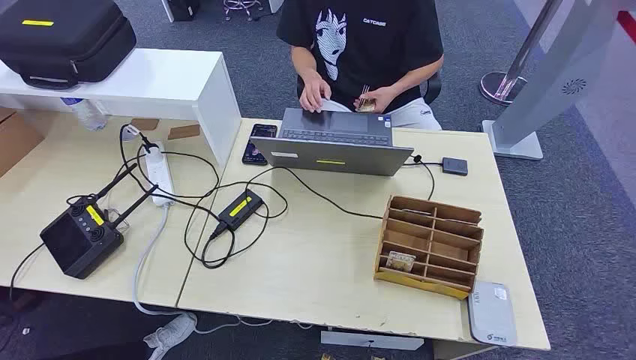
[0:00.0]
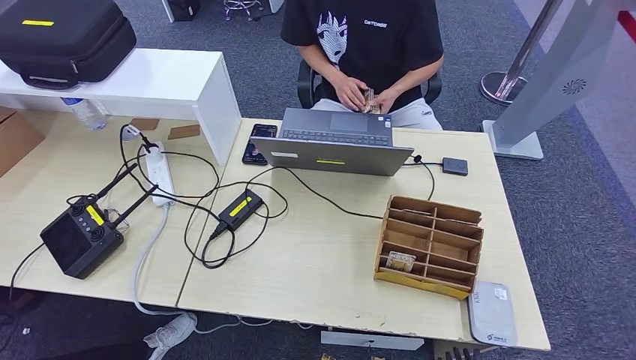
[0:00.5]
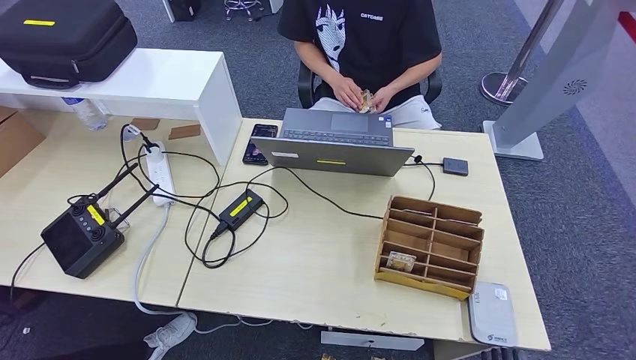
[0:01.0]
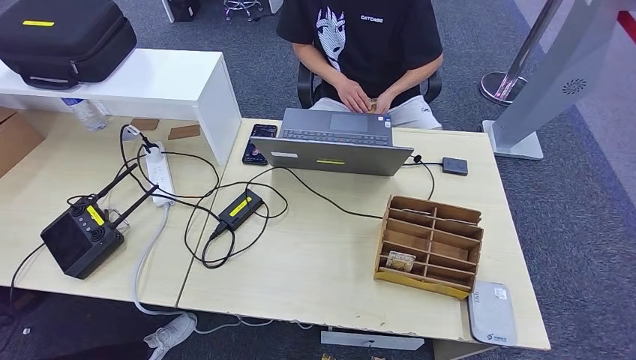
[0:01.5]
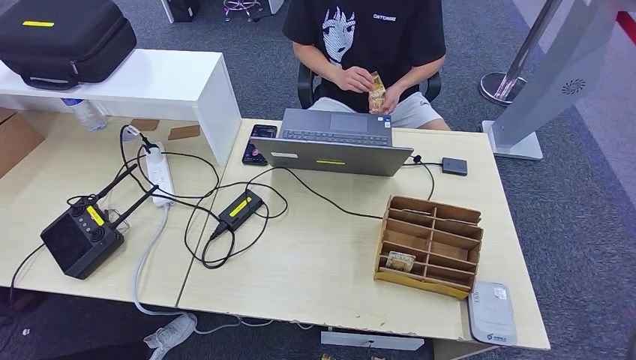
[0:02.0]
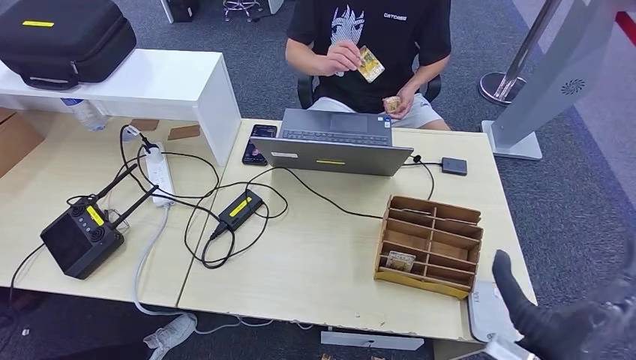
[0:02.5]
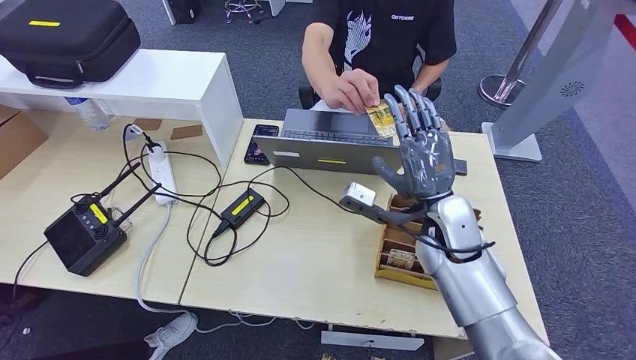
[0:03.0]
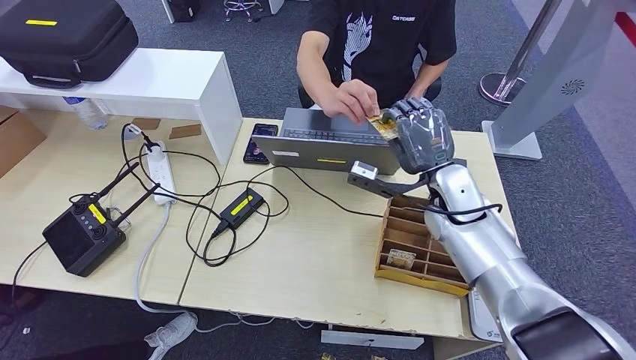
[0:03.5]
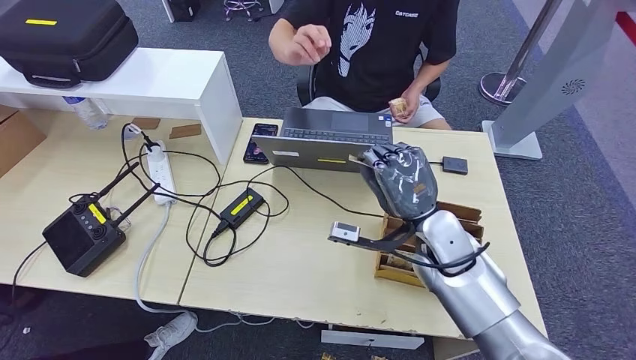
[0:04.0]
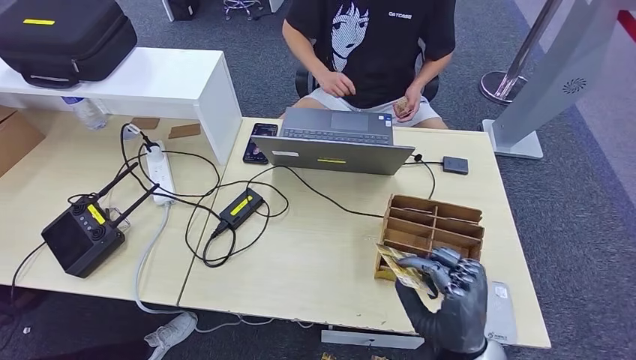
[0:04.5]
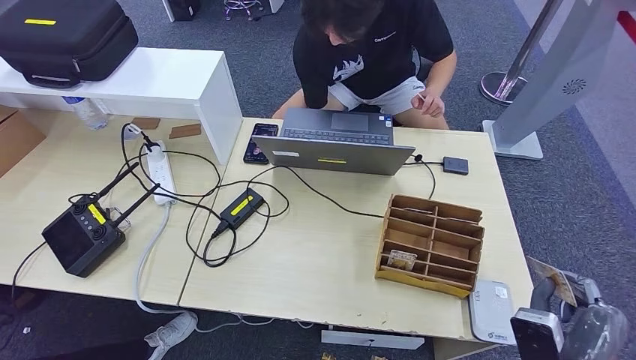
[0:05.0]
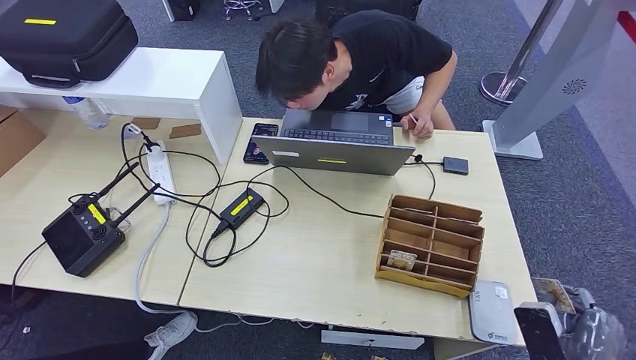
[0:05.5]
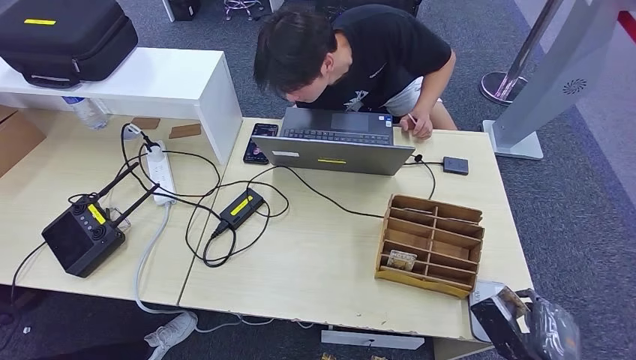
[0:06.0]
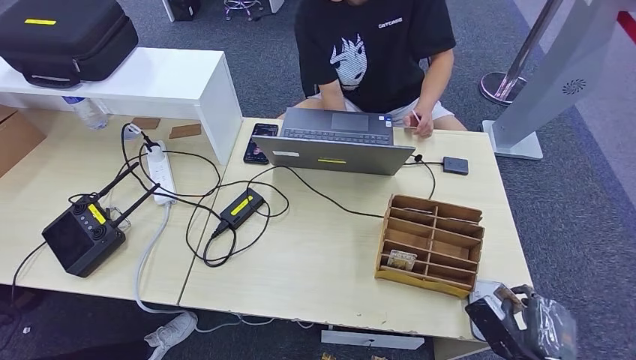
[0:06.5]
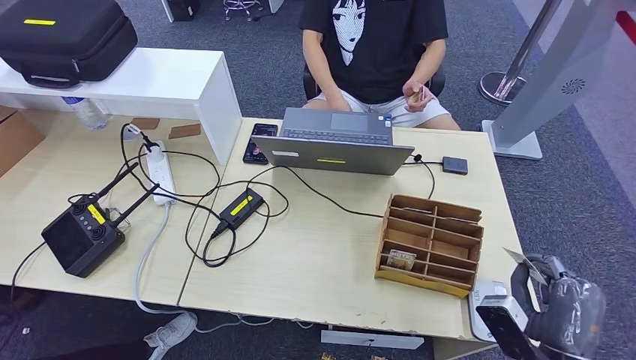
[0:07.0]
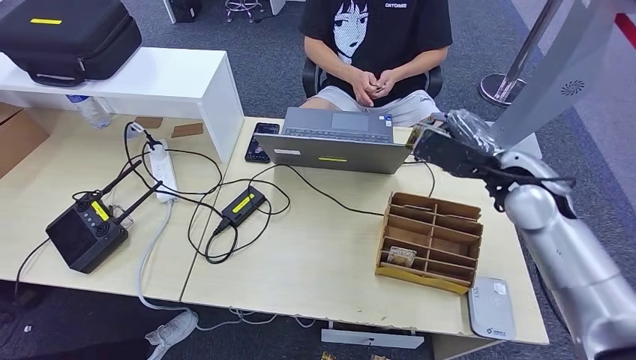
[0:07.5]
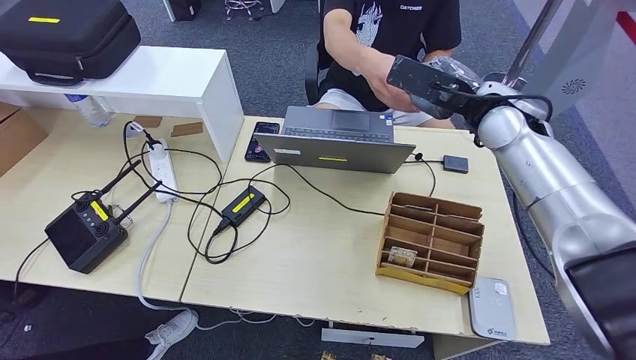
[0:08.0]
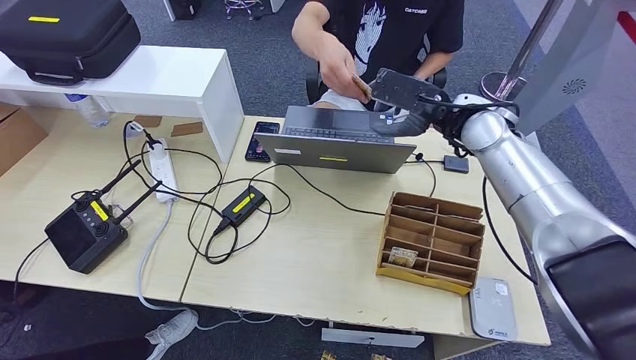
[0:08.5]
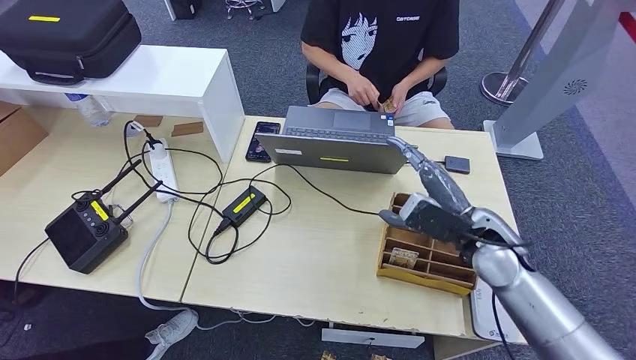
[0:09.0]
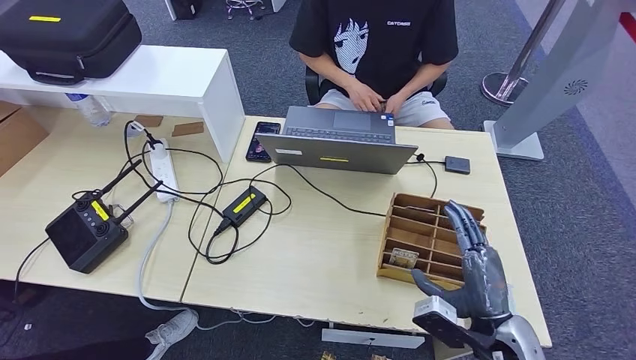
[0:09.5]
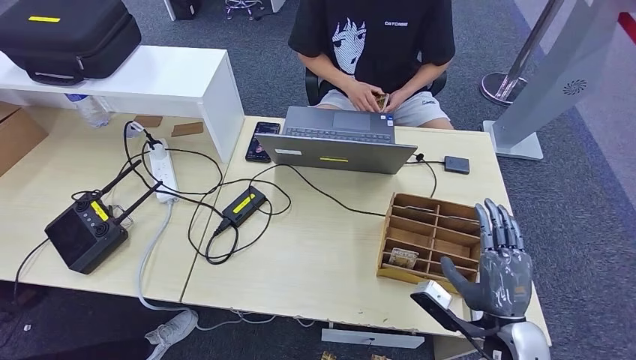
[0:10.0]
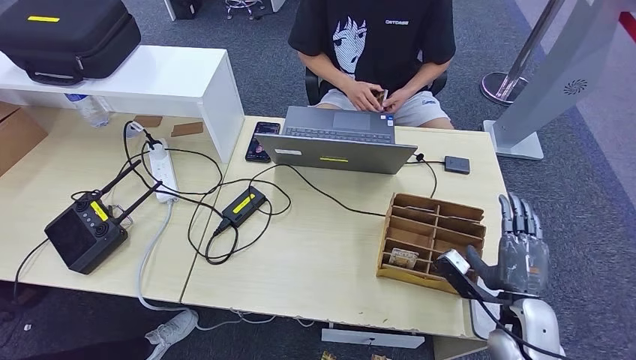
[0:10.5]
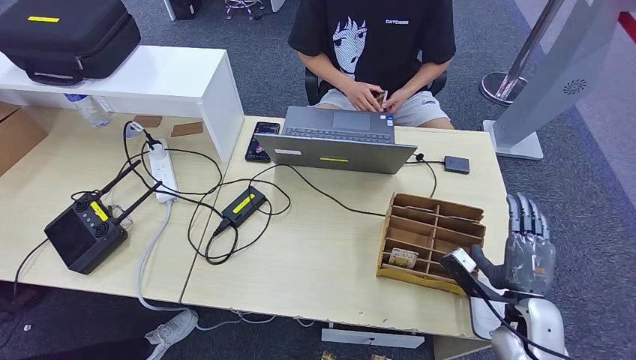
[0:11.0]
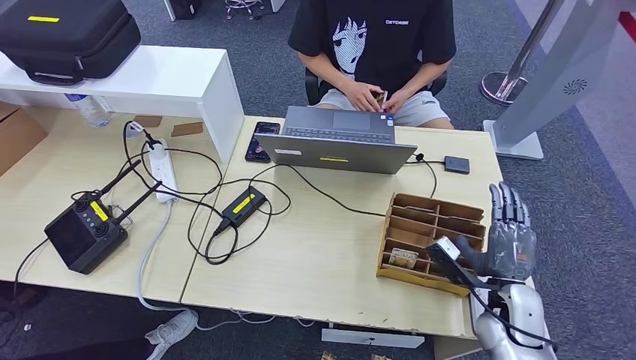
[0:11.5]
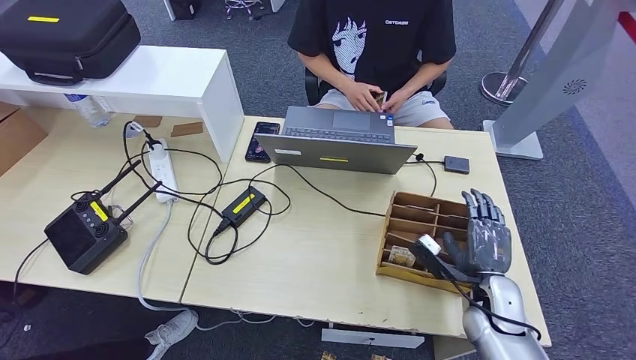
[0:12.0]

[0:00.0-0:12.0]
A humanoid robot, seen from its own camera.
Step, 0:00.0 to 0:04.5: Take the ID card from the person's hand.
Step, 0:05.0 to 0:07.0: Place the ID card on the card reader.
Step, 0:07.5 to 0:10.5: Hand the ID card to the person.
0:02.0 to 0:04.0: The right hand is displaced forward, to the left and upward by some 35 cm.
0:04.0 to 0:06.0: The right hand heads backward, to the right and downward, covering roughly 30 cm.
0:10.0 to 0:12.0: The right hand travels forward by some 10 cm.

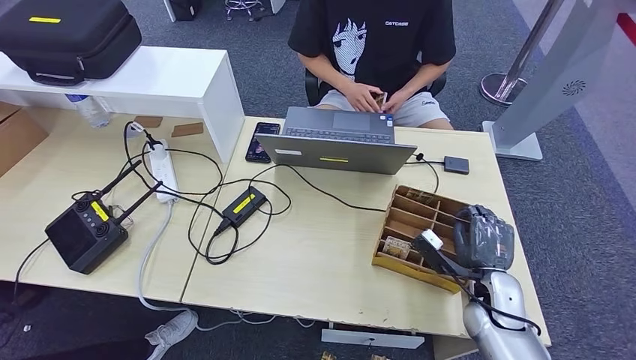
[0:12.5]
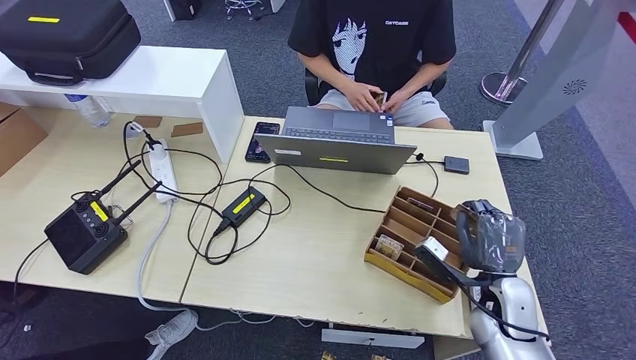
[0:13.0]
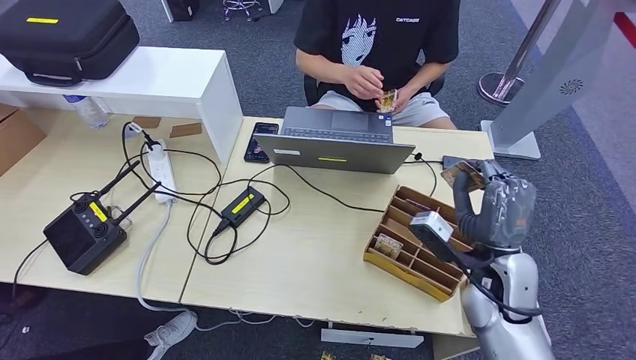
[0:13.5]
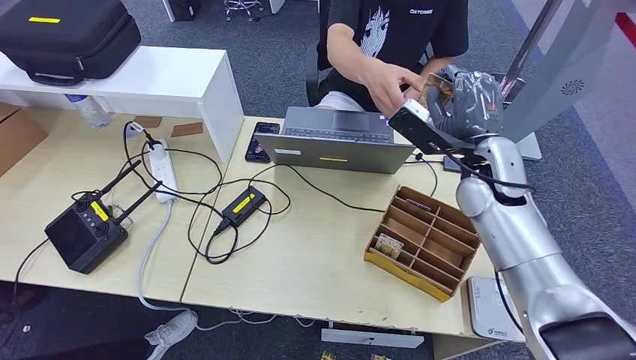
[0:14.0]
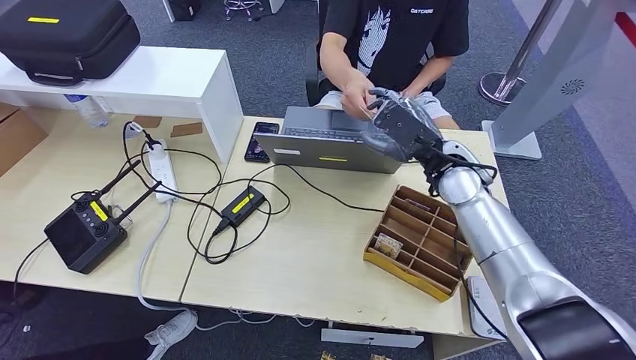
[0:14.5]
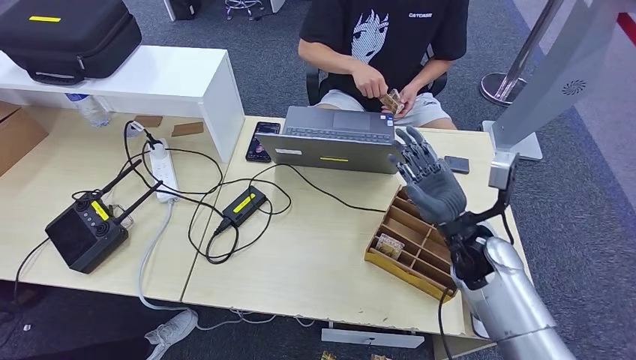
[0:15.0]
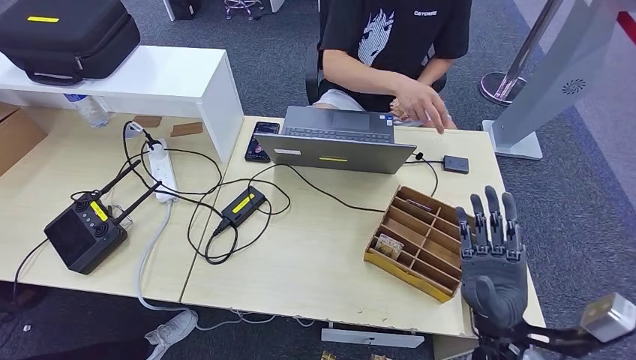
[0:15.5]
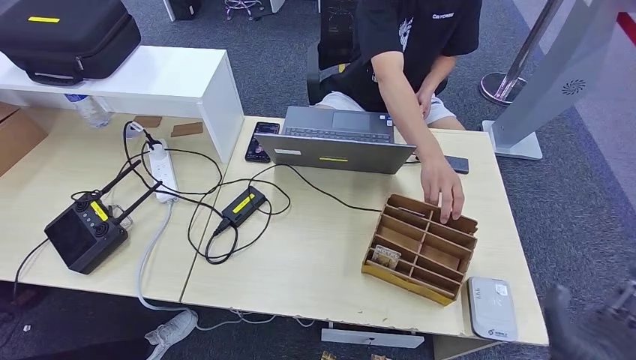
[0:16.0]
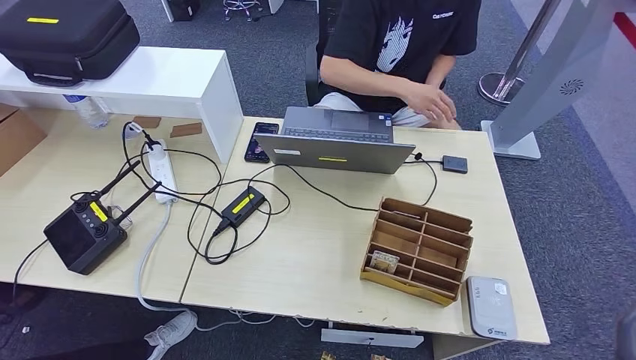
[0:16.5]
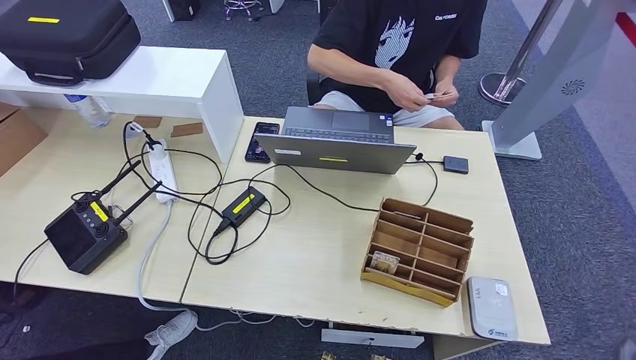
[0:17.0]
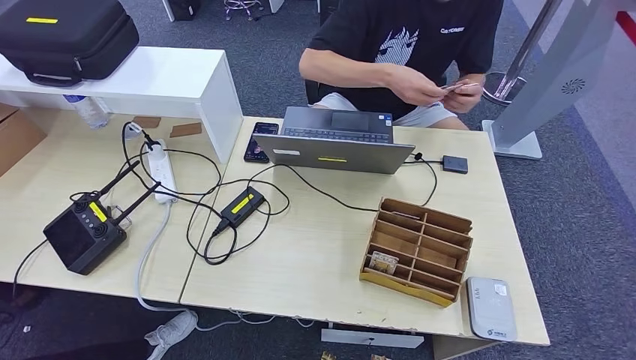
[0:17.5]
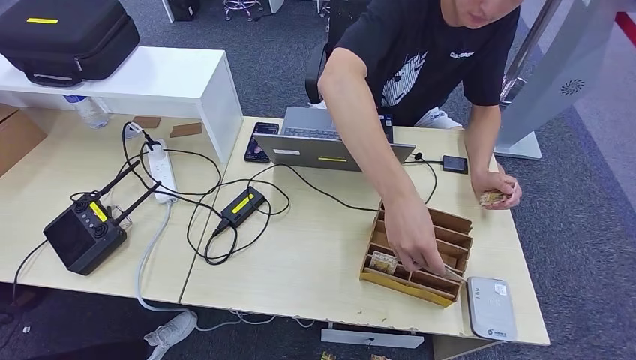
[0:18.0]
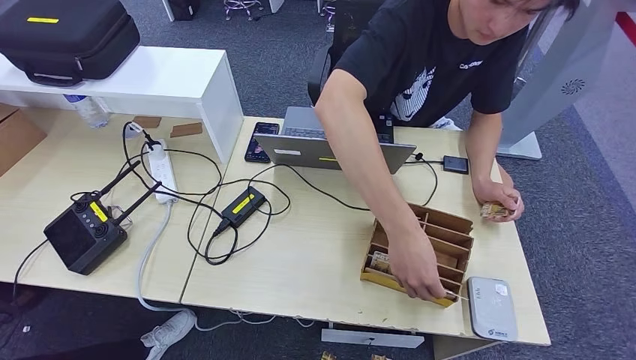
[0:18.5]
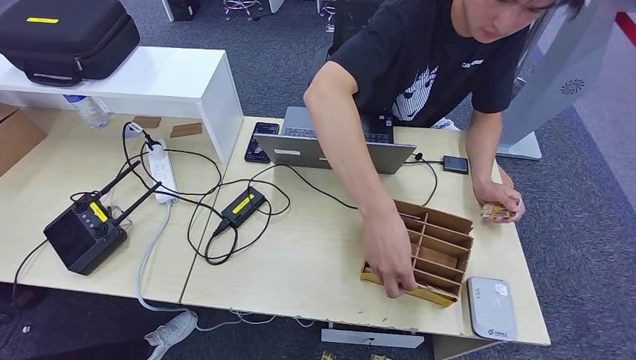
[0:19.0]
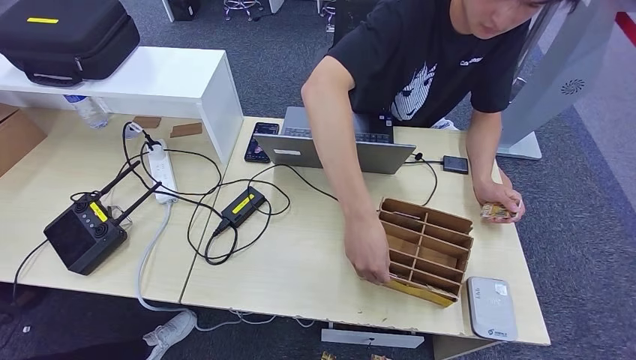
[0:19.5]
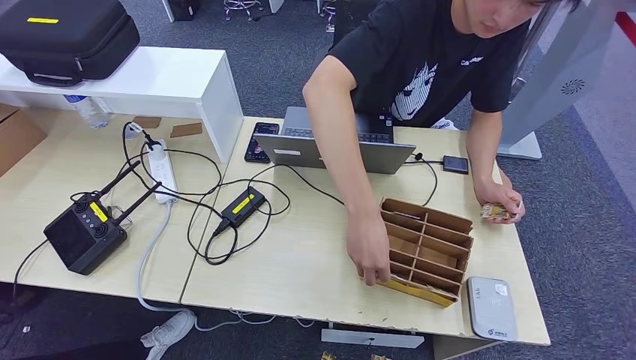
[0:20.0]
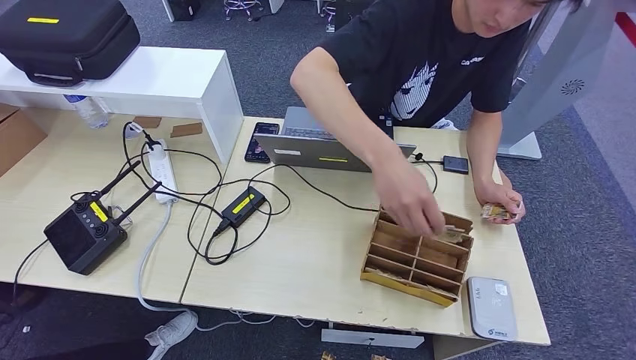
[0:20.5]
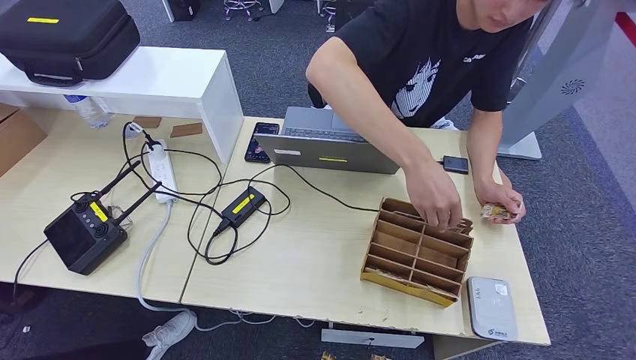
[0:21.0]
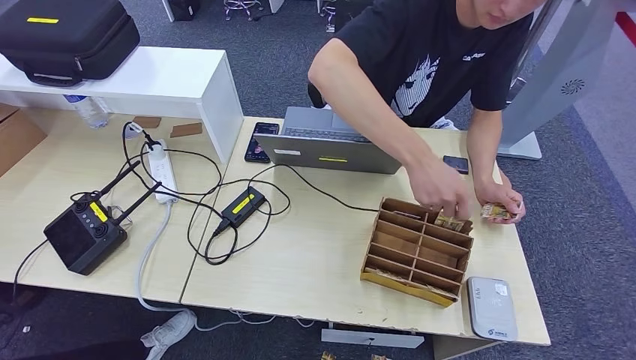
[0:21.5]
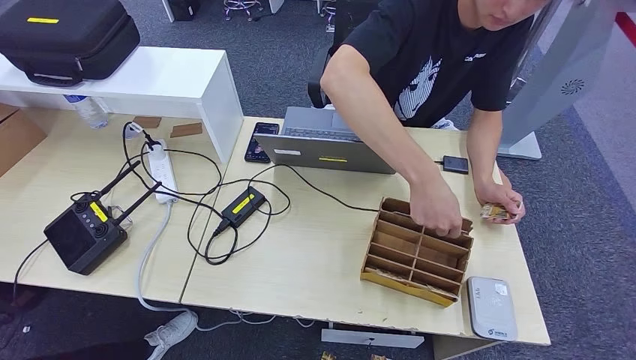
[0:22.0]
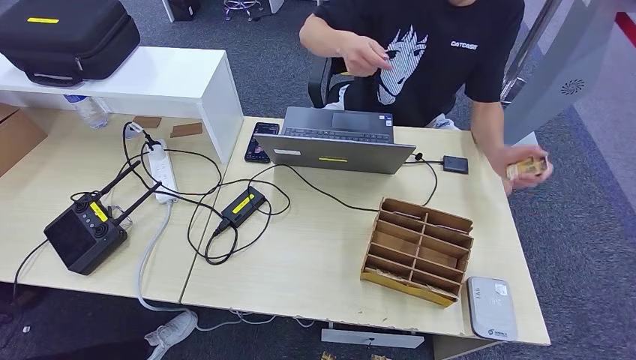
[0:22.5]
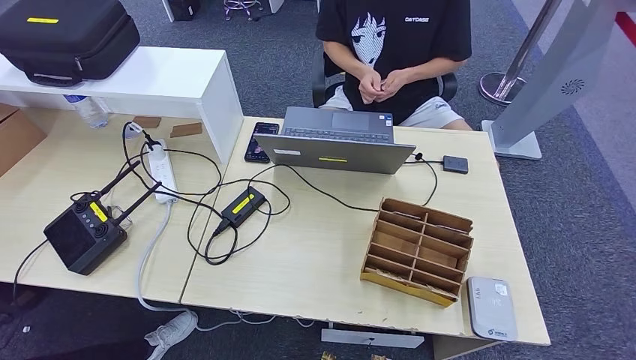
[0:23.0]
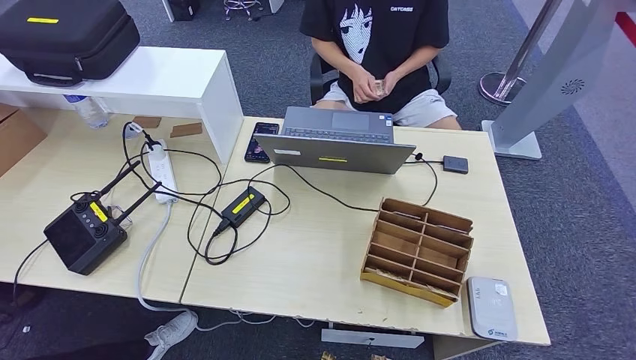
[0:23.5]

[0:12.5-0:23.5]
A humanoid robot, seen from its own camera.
0:12.5 to 0:14.5: The right hand moves upward, forward and to the left, some 25 cm.
0:14.5 to 0:16.0: The right hand is displaced backward and downward by roughly 35 cm.
0:16.0 to 0:18.0: The right hand travels downward by some 25 cm.
0:20.0 to 0:21.5: The hands make only small movements.
0:21.5 to 0:23.5: Both hands stay about where they are.
